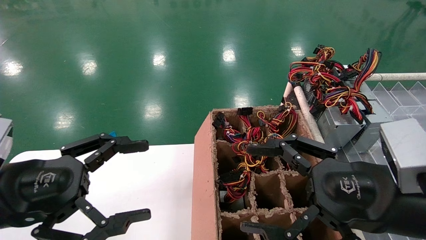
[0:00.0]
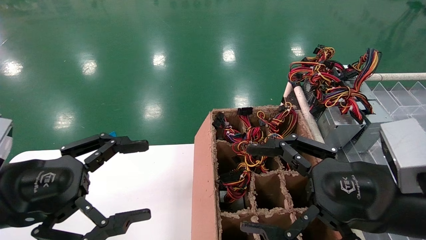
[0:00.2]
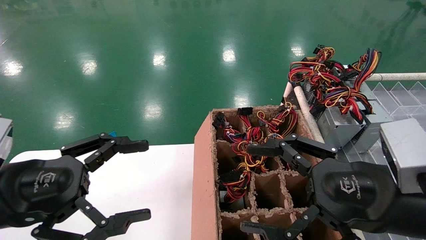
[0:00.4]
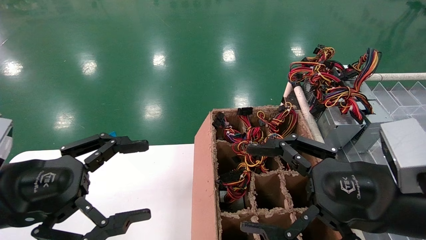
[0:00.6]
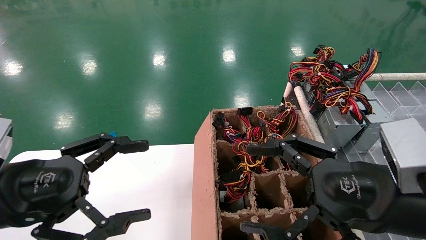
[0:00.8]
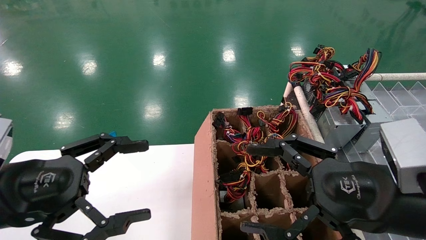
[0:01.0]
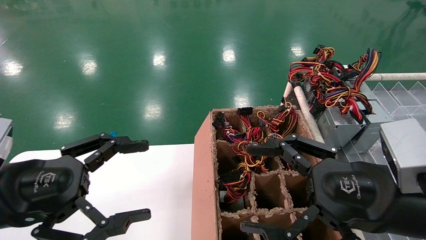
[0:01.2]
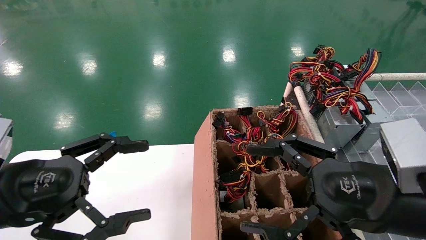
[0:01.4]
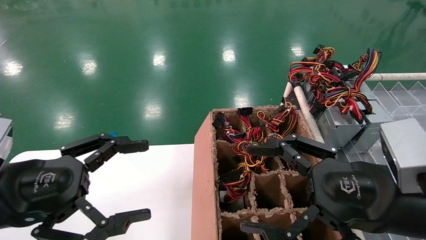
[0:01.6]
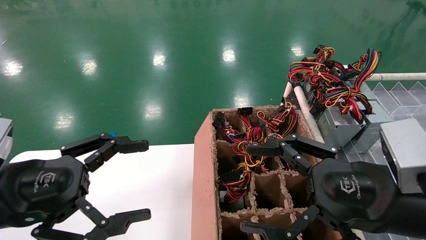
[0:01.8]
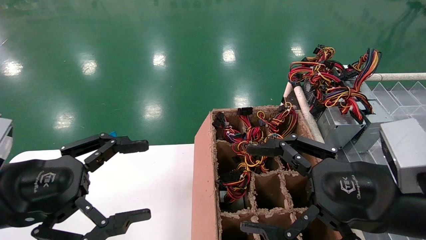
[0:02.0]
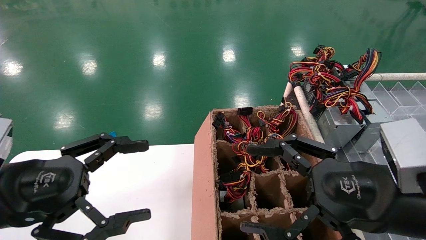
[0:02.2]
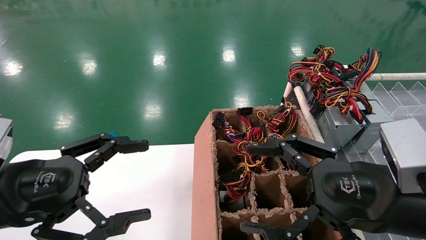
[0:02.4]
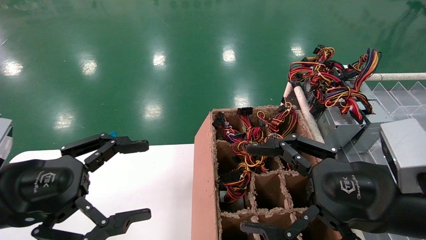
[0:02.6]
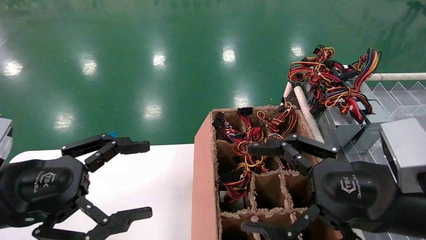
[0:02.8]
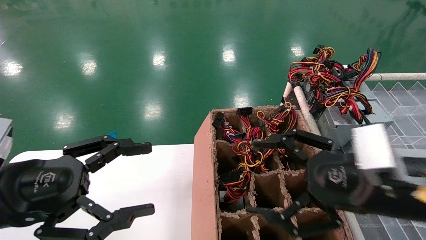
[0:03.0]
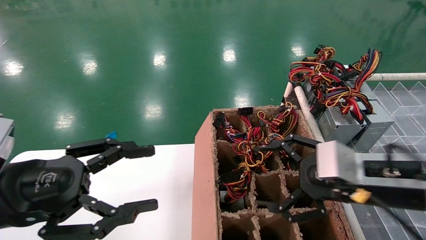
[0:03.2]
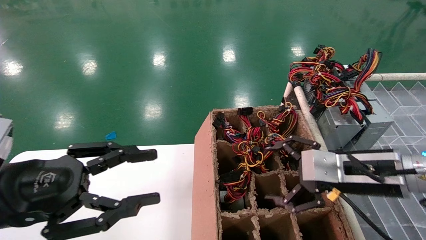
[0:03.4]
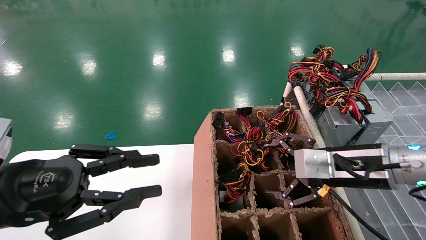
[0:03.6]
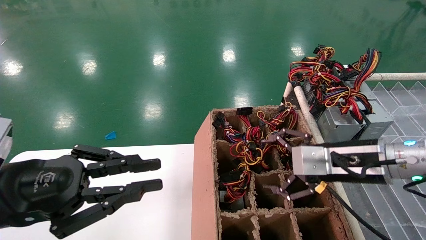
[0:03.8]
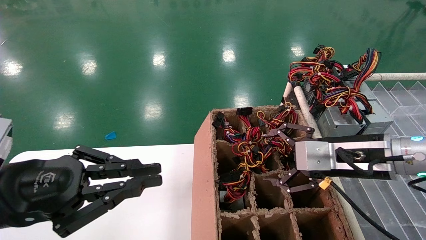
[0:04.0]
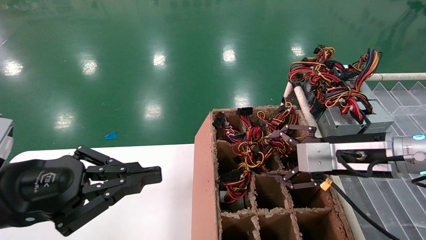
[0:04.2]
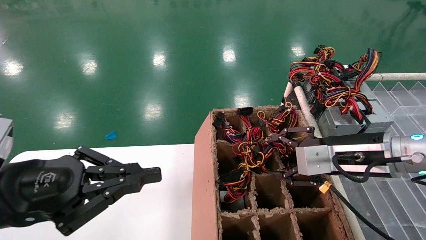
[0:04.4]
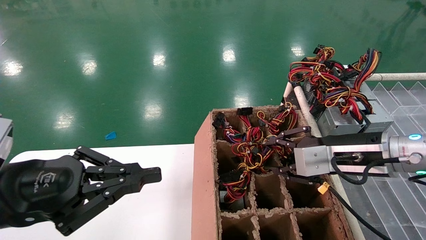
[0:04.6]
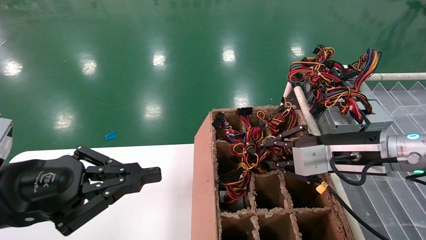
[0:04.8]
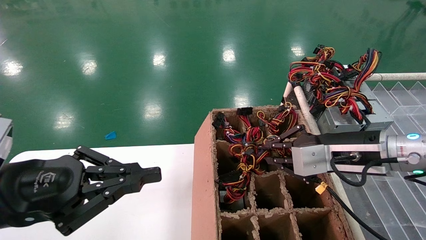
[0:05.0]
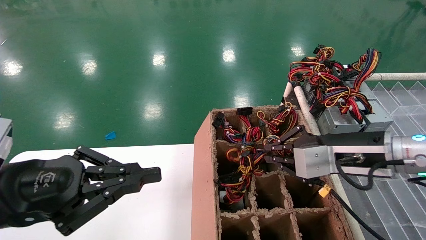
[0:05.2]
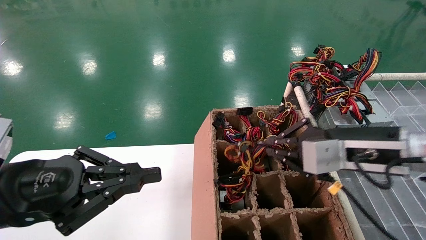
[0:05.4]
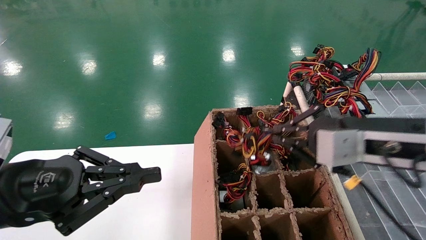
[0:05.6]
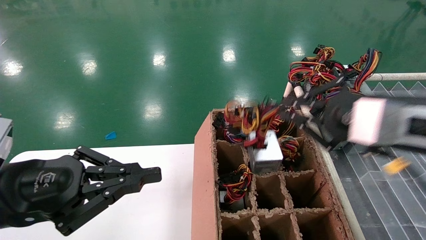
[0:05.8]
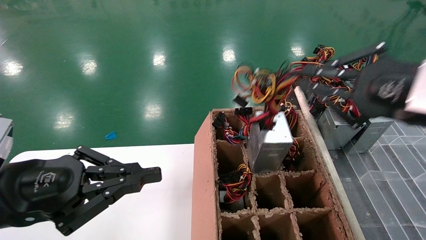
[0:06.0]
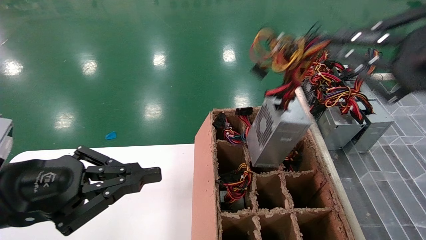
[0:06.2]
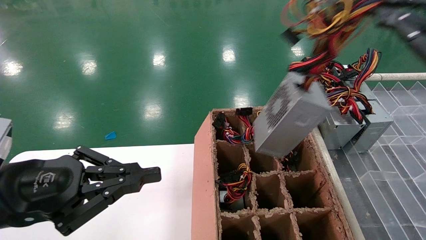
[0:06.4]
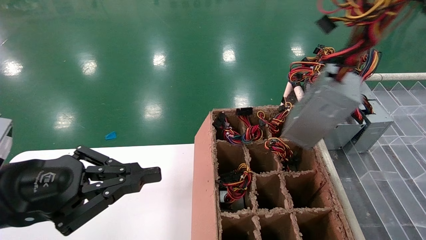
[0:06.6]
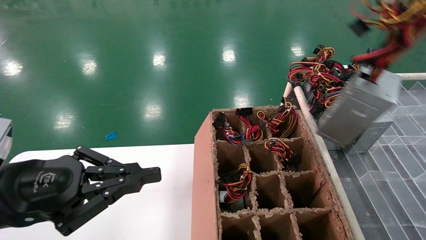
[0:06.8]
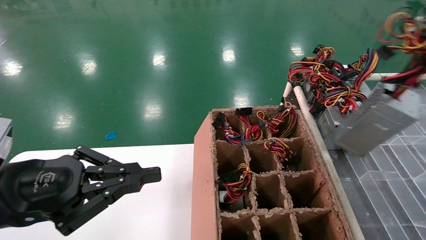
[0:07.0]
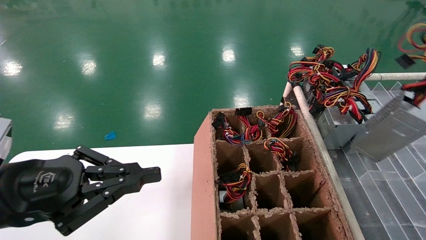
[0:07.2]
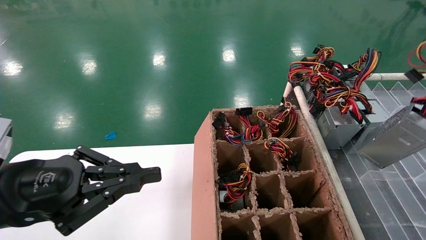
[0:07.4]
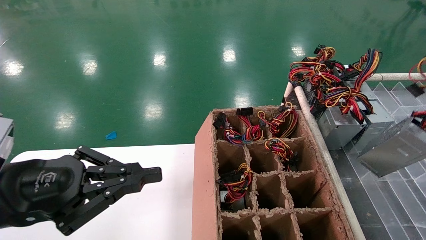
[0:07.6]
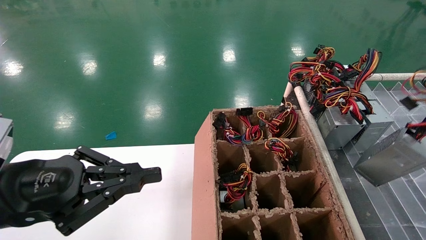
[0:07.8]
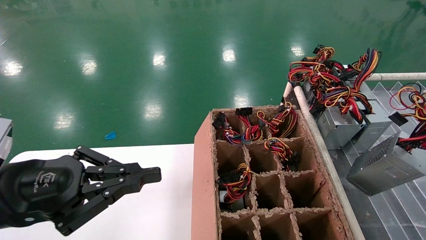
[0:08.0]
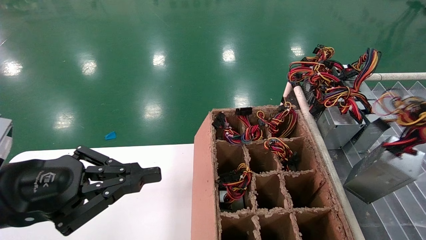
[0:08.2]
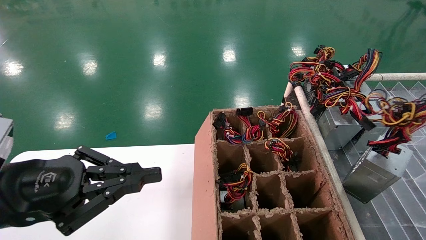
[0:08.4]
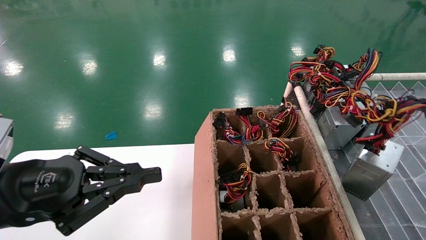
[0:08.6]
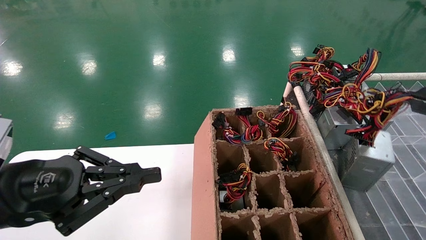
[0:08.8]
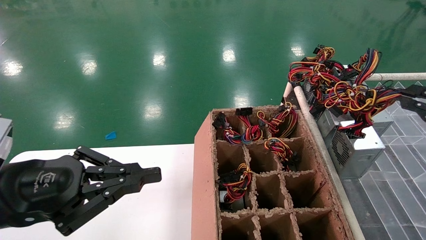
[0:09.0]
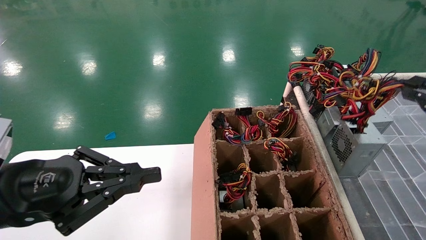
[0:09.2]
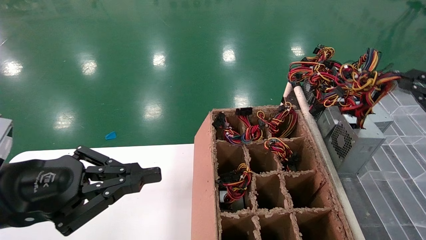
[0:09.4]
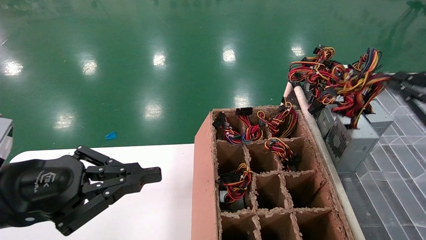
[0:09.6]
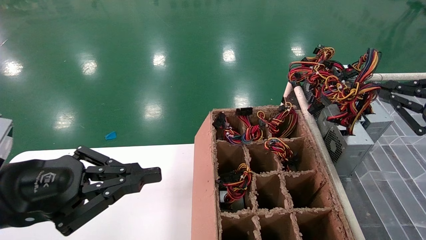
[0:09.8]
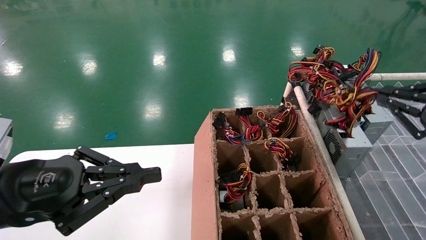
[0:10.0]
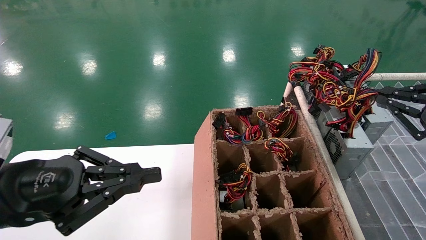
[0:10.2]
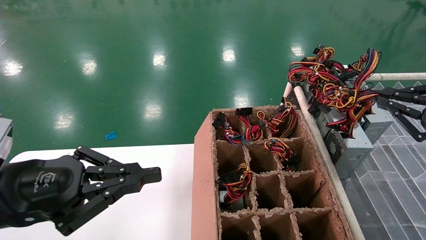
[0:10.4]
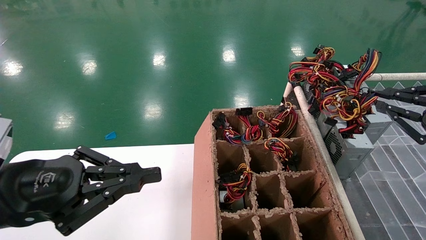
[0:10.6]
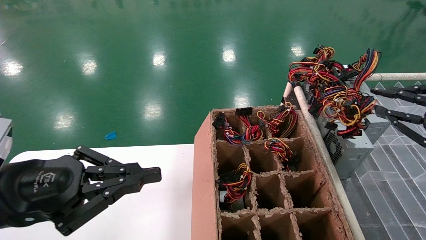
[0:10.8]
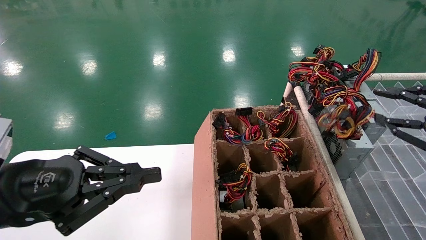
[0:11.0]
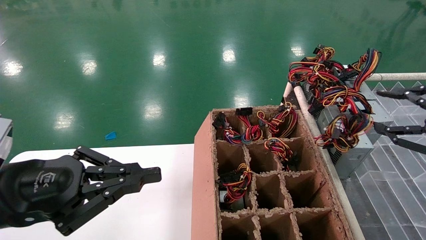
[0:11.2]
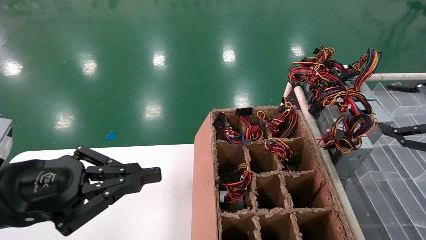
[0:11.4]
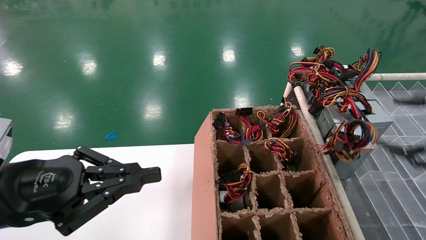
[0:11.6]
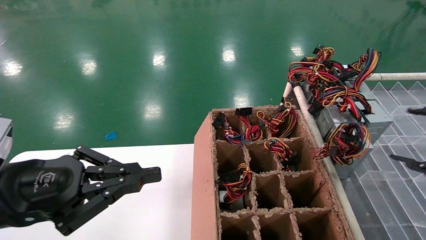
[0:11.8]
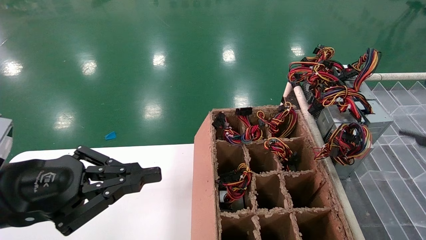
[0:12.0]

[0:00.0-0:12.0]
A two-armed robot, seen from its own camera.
Step, 0:03.2 to 0:05.2: Grab the main unit power supply from the containment box.
Step, 0:05.4 to 0:11.8: Place the main unit power supply in the designated area.
0:00.0 to 0:01.6: The two grippers keep their place.
0:01.6 to 0:03.0: There are only small adjustments of the grippers.
0:03.0 to 0:04.4: The right gripper is displaced forward by approximately 10 cm, while the left gripper closes up.
0:04.4 to 0:06.0: The right gripper moves upward and backward, about 15 cm, and closes up.
0:06.0 to 0:07.6: The right gripper goes about 20 cm to the right and backward.
0:07.6 to 0:09.0: The right gripper travels forward and to the left by about 10 cm.
0:09.0 to 0:10.4: The right gripper travels forward by approximately 5 cm.
0:10.4 to 0:12.0: The right gripper travels backward by about 5 cm, and opens.

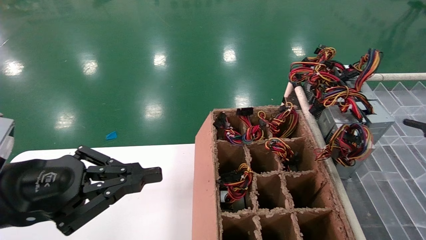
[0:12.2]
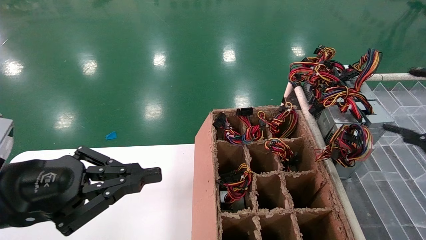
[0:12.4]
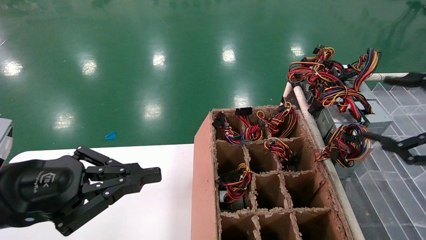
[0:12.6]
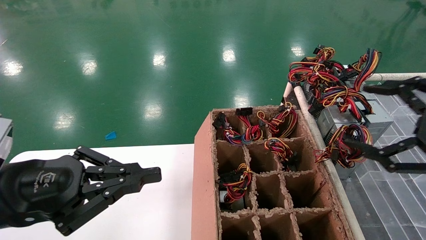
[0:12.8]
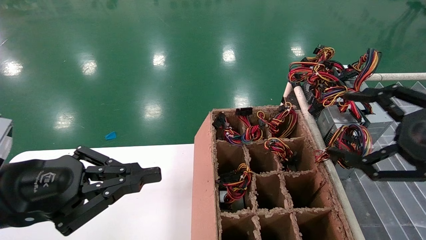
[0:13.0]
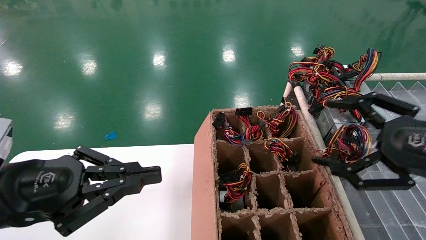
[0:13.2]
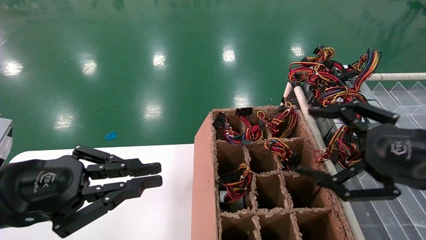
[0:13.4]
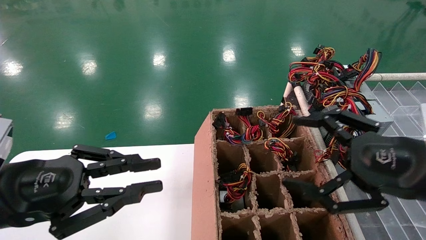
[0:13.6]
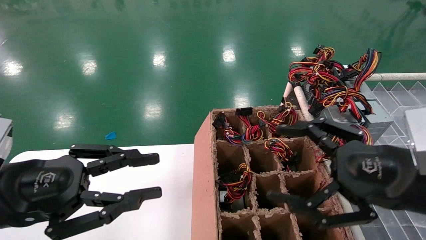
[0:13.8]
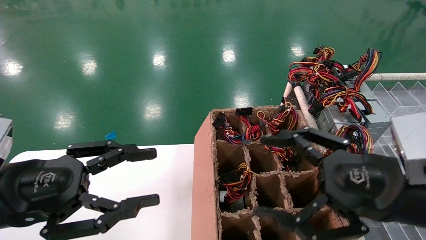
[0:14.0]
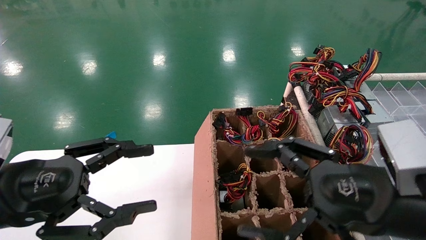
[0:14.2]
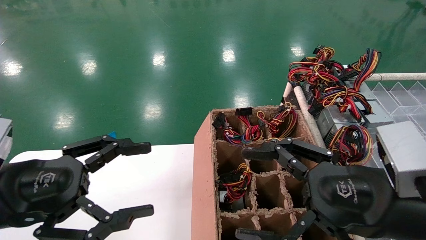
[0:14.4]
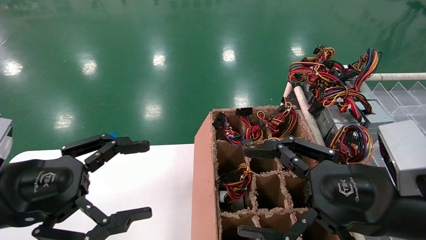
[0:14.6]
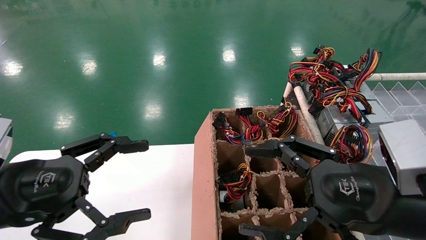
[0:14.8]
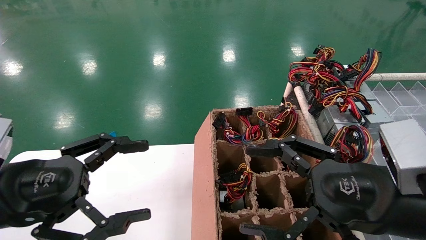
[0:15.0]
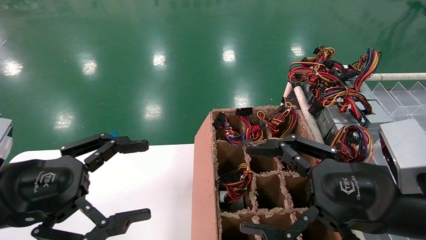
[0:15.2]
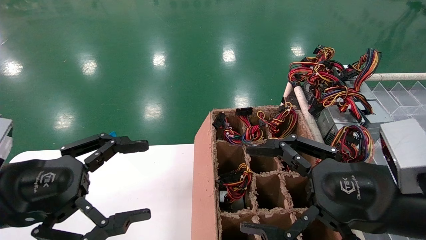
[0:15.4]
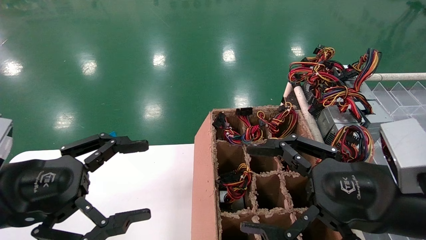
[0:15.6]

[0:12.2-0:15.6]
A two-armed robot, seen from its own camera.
0:12.2 to 0:13.8: The right gripper moves to the left, some 15 cm.
0:13.8 to 0:15.6: The left gripper opens.
